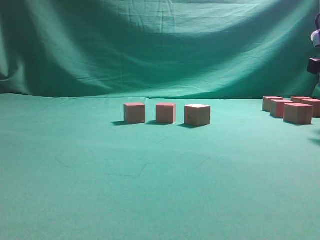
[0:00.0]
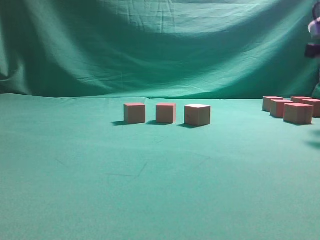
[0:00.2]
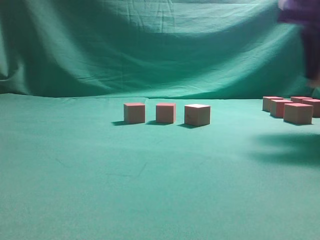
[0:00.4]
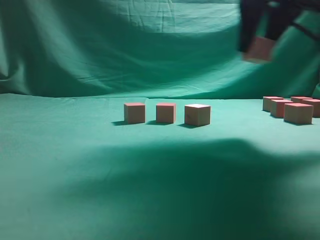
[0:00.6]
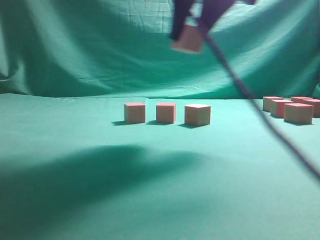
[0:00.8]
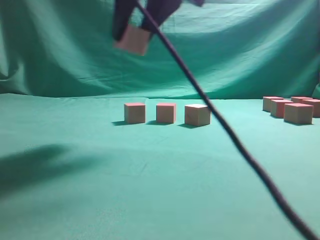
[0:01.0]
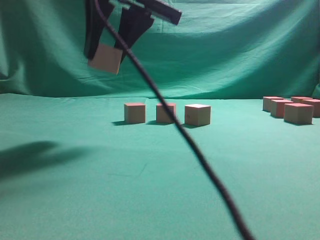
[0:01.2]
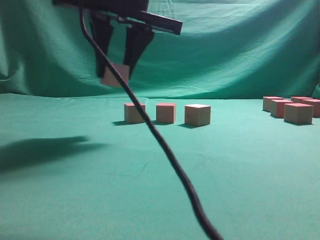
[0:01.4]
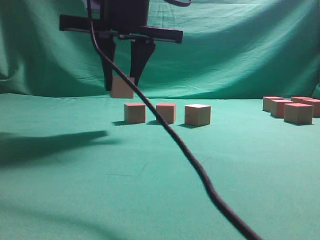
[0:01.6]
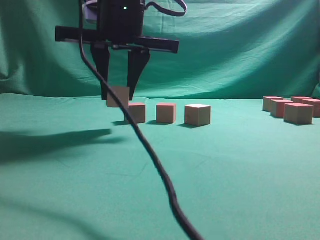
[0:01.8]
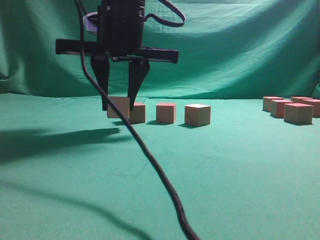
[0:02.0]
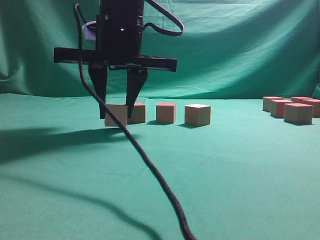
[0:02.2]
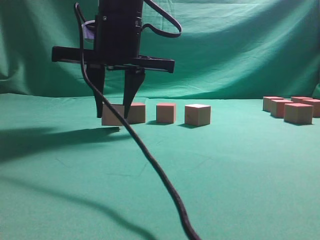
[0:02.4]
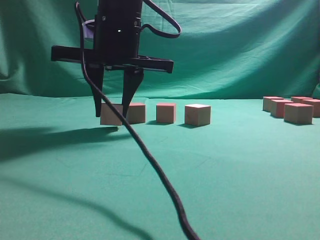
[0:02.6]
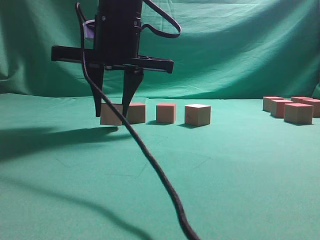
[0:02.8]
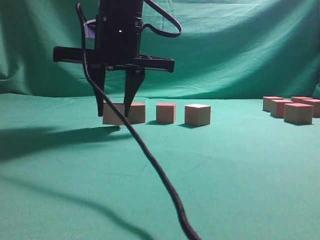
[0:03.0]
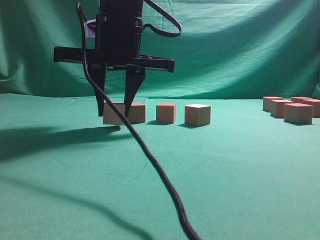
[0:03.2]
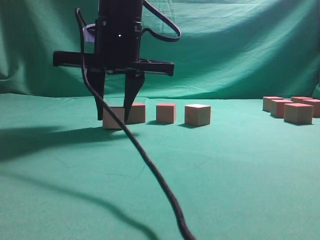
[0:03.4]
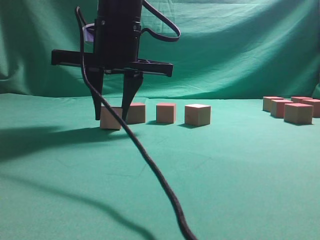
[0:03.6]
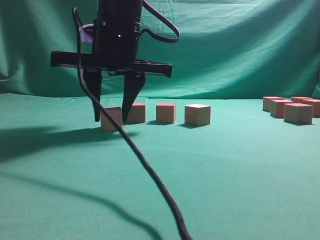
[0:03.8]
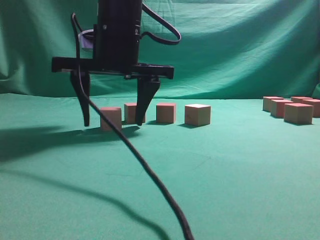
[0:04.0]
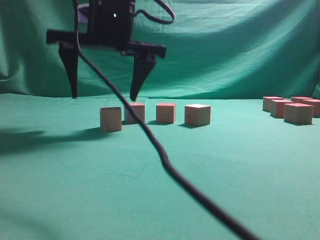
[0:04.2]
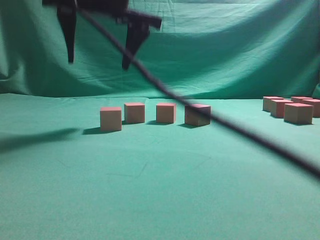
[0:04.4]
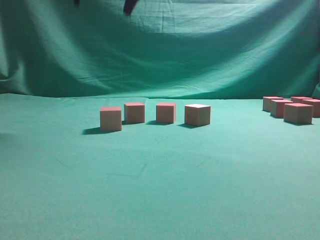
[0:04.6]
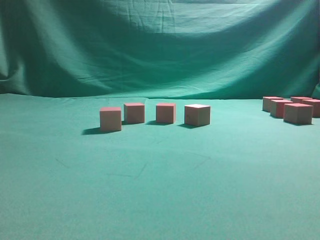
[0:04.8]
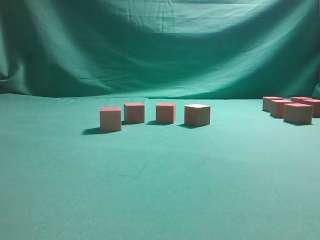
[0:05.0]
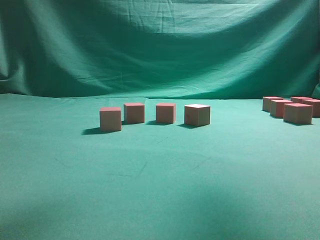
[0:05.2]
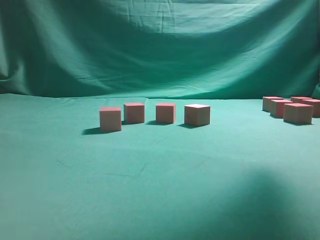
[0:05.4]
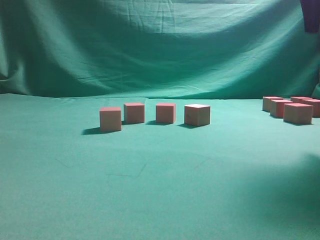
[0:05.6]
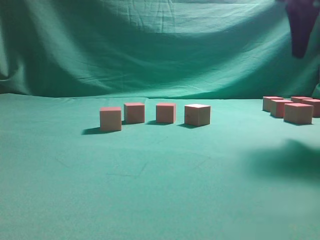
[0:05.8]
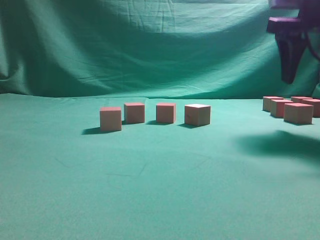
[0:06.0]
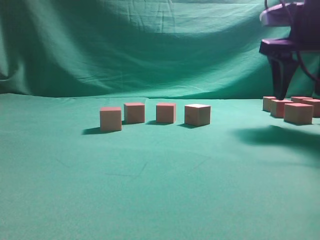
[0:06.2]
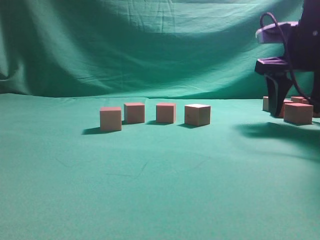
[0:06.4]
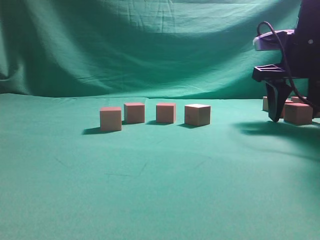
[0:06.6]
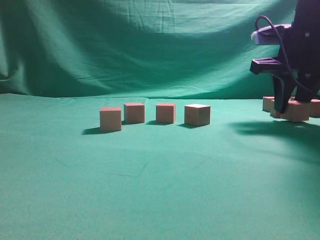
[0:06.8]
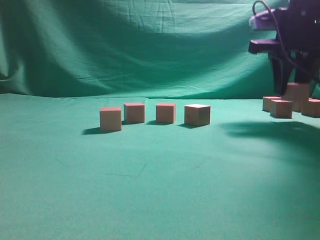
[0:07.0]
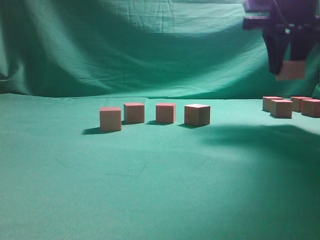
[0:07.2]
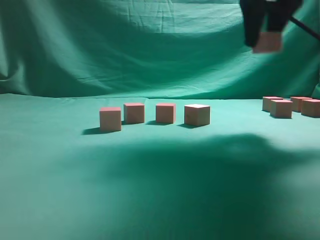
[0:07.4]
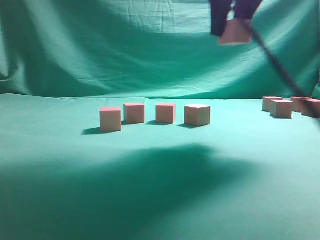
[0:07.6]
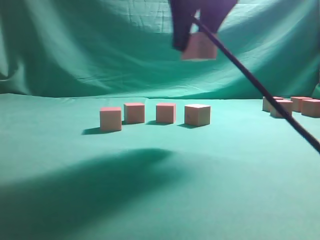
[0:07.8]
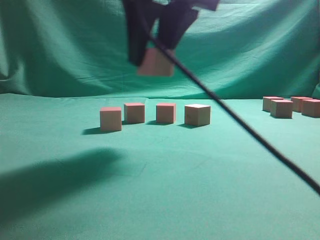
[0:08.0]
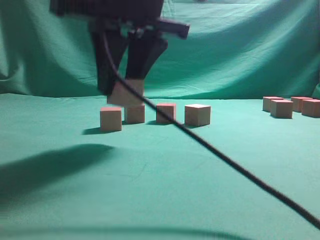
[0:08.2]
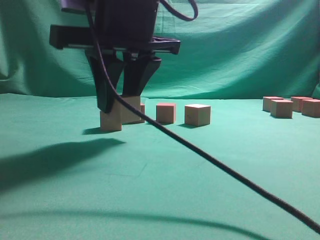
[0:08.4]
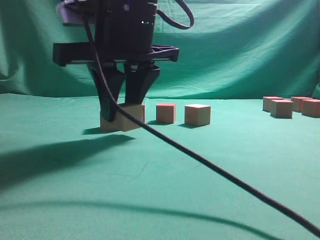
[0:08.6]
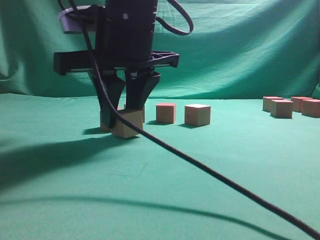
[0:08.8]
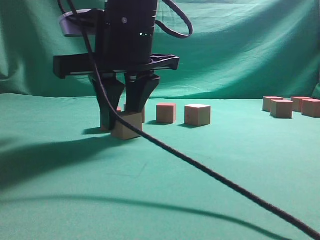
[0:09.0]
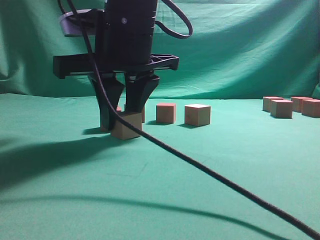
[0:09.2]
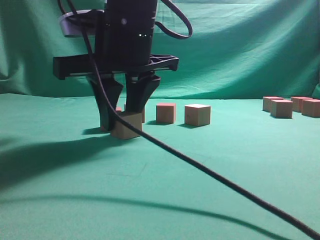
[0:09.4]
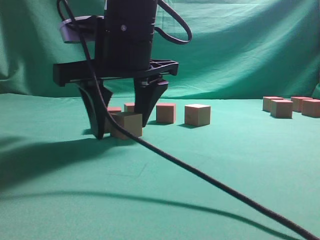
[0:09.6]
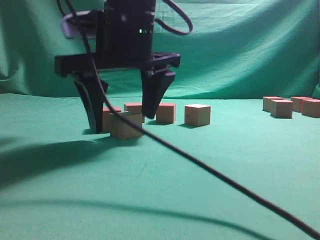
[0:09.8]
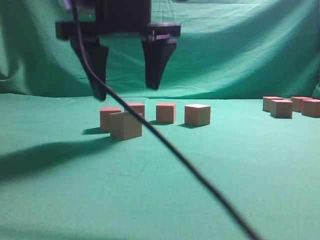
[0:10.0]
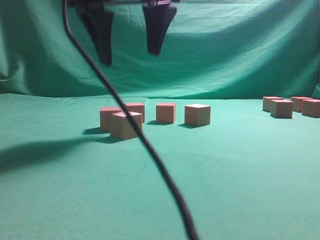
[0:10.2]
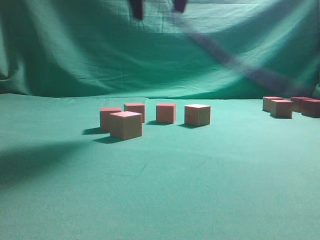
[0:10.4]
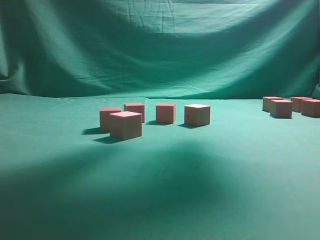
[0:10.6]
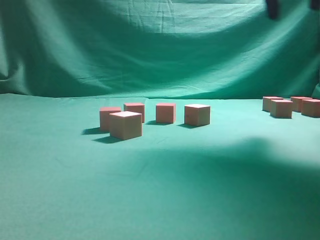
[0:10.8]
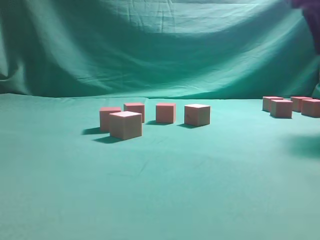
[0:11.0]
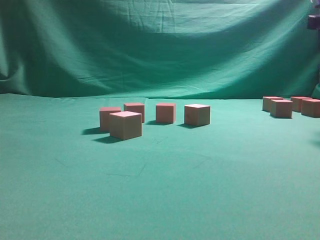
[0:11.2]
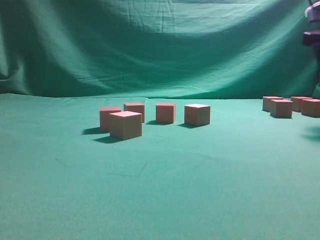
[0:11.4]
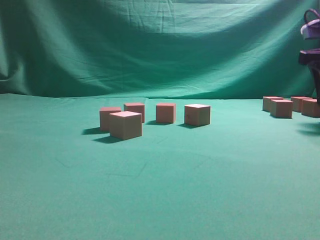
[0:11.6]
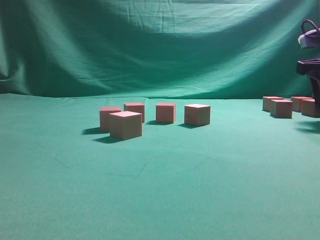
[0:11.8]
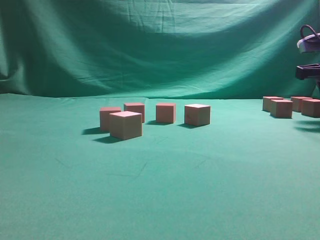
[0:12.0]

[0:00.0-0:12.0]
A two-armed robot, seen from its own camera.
Task of the whole recording: pick up the multiple cubes in two columns one by one and place them in another position on the table.
Step, 0:00.4 to 0:04.4: Place the block at the correct position to assemble the letter S.
Step, 0:04.6 to 0:07.0: Pick up the block on the table.
Step, 0:07.2 to 0:10.0: Place the block at the correct position to assemble the letter S.
0:00.0 to 0:01.6: The right gripper travels to the left by some 35 cm.
0:01.6 to 0:03.0: The grippers make only small movements.
0:03.0 to 0:04.4: The right gripper shifts about 10 cm upward, and opens up.
0:04.4 to 0:06.0: The right gripper travels to the right by roughly 30 cm.
0:06.0 to 0:07.6: The right gripper travels to the left and upward by some 15 cm, and closes its fingers.
0:07.6 to 0:09.0: The right gripper heads to the left and downward, covering approximately 20 cm.
0:09.0 to 0:10.4: The right gripper travels upward by about 15 cm, and opens its fingers.
0:10.4 to 0:12.0: The right gripper heads to the right and downward, covering approximately 30 cm, and closes up.

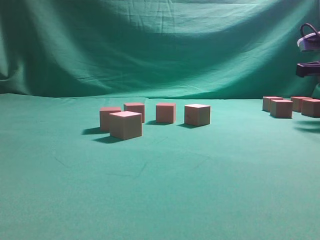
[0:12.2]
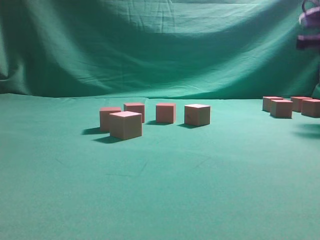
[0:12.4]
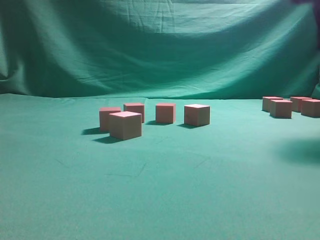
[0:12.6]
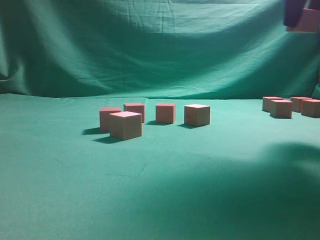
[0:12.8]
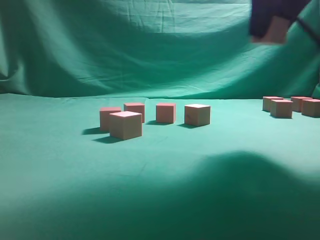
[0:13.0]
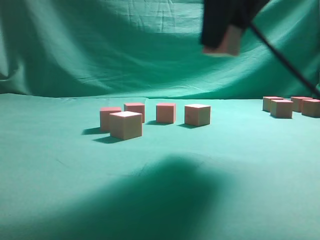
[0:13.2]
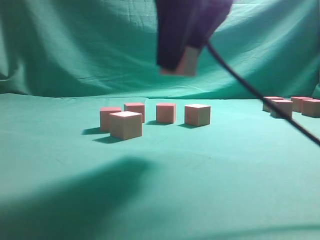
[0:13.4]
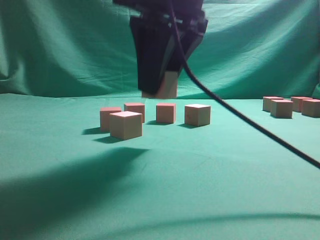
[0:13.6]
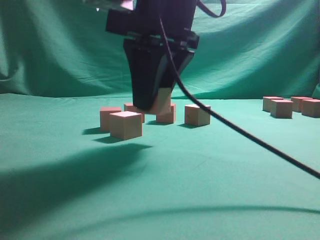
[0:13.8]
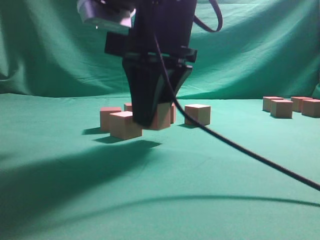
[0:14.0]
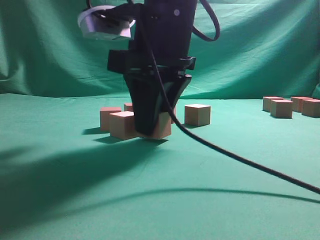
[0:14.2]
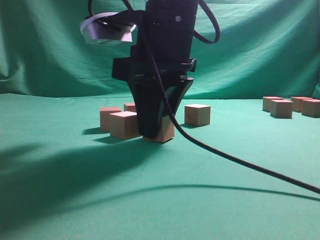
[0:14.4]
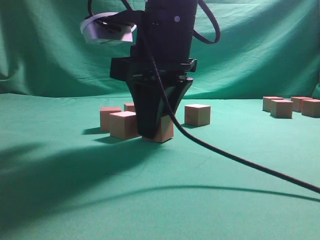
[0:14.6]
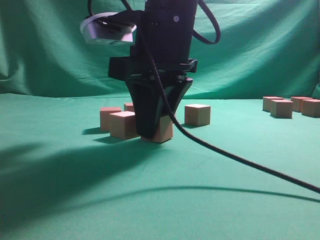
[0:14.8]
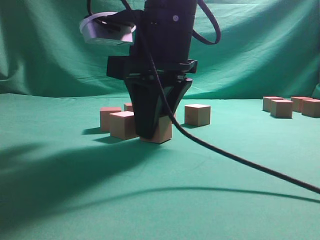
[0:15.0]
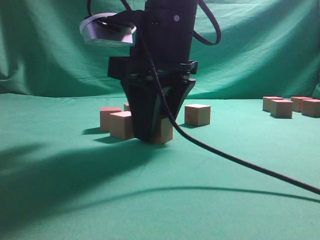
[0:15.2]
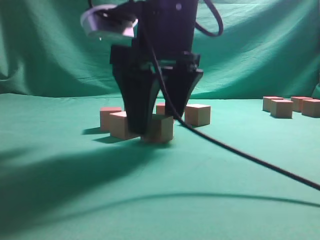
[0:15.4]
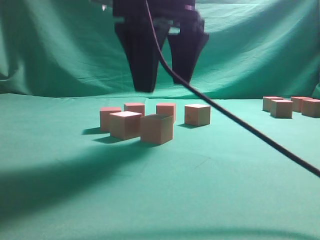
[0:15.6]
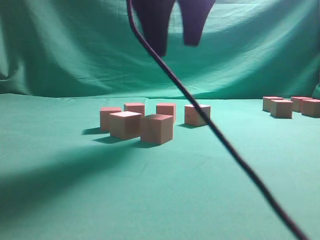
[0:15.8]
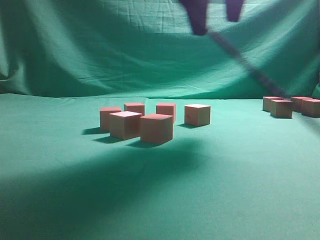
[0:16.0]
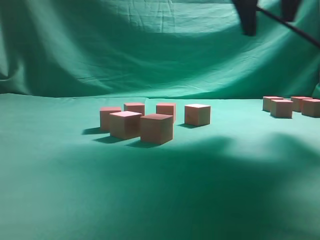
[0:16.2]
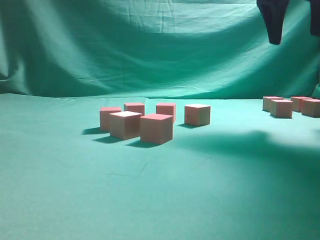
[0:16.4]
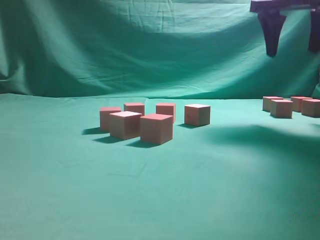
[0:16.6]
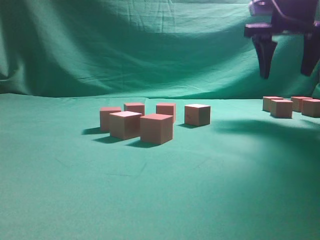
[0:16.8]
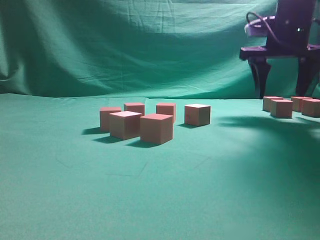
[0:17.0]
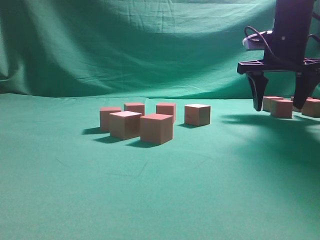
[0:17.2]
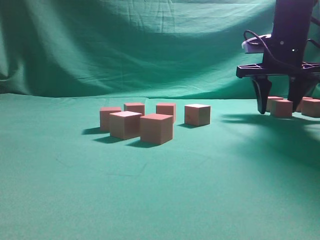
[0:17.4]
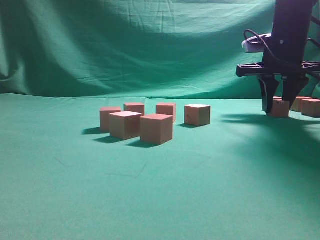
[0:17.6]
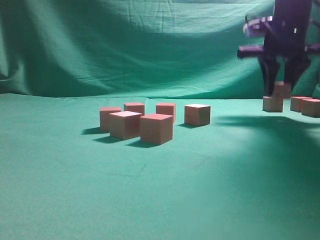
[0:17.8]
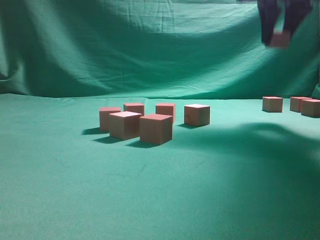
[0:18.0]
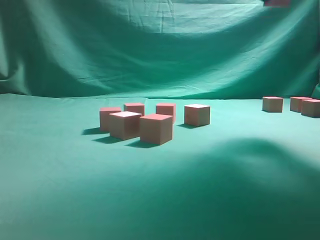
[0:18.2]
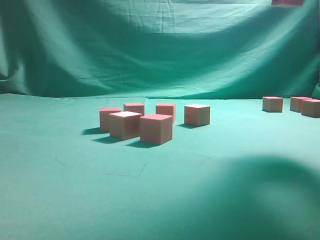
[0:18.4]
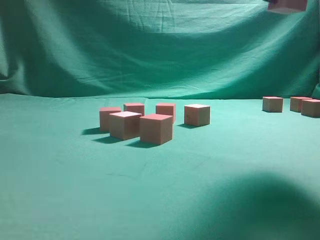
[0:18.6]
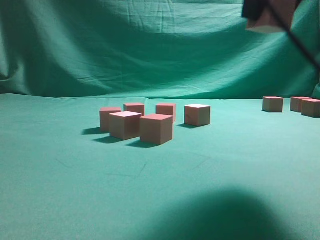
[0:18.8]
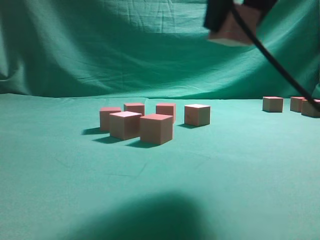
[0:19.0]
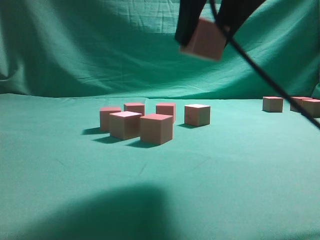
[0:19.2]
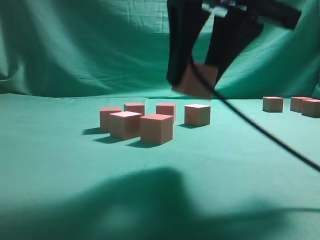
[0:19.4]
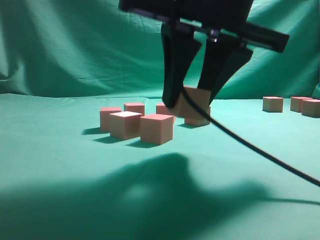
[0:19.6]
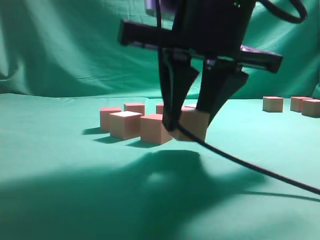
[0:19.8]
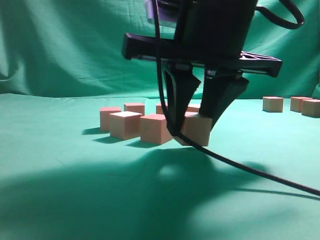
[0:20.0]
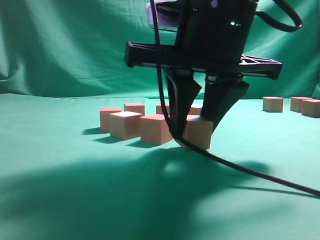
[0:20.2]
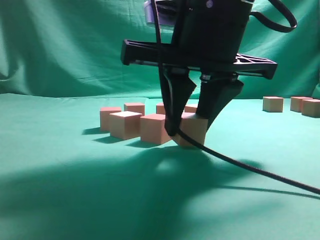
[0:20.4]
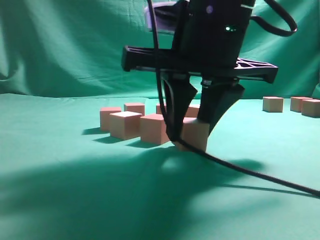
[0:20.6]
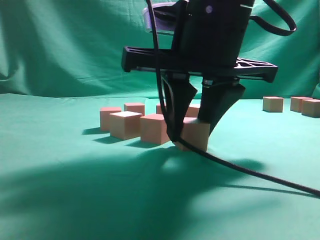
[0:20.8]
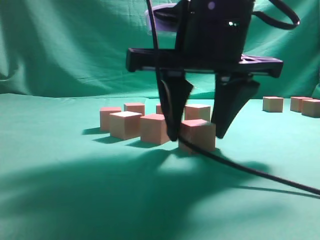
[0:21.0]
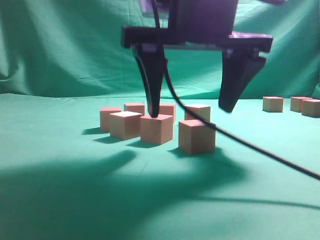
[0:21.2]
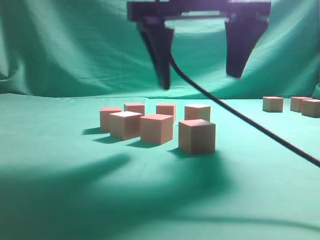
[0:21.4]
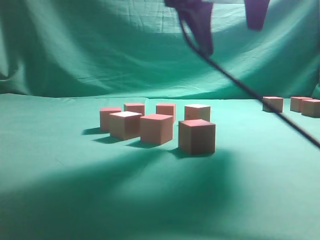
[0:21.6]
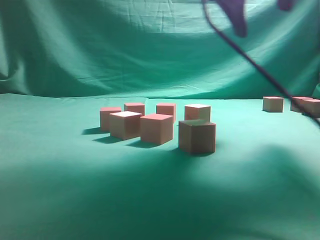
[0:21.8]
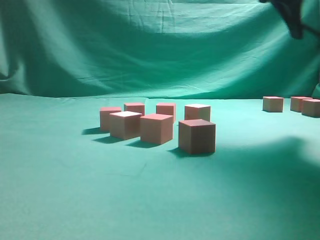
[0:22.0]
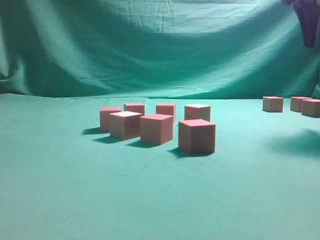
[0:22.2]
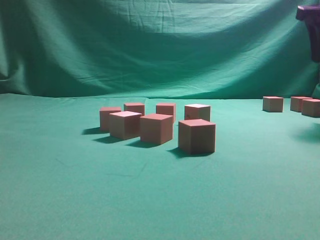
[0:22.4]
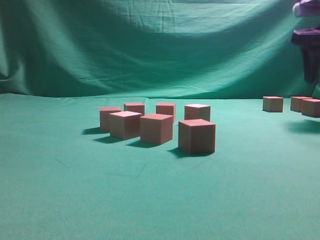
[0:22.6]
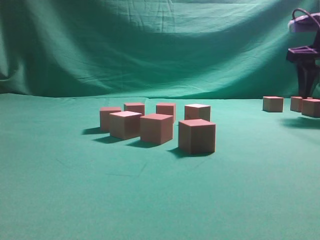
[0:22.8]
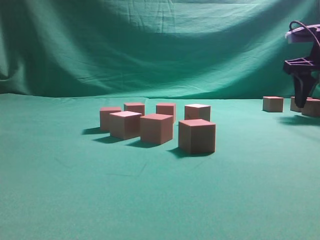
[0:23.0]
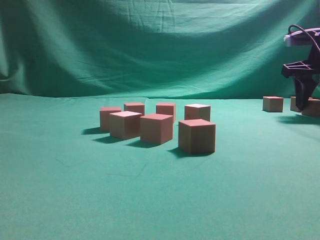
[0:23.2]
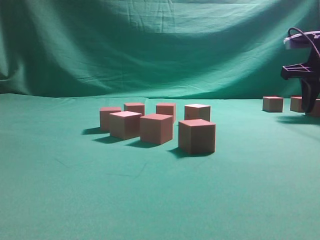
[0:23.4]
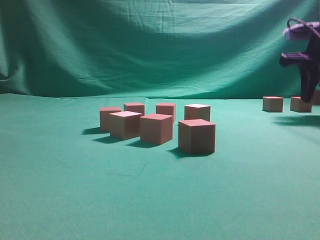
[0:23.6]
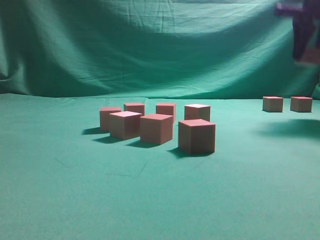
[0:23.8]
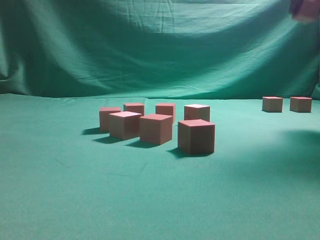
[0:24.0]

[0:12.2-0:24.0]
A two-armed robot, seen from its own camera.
Task of the whole recording: pick up the multiple cubes in two columns one by one and place them in another position on the table.
Step, 0:12.6 to 0:15.6: Place the block at the correct position to assemble the letter S.
Step, 0:15.8 to 0:17.8: Pick up the block on the table.
Step, 0:18.0 to 0:21.4: Place the block at the correct position to assemble the letter S.
Step, 0:21.6 to 0:23.6: Pick up the block on the table.
0:12.2 to 0:13.6: The right gripper moves to the left and backward, some 30 cm.
0:13.6 to 0:15.2: The right gripper changes place by about 5 cm.
0:15.2 to 0:16.6: The right gripper shifts some 25 cm to the right, forward and upward.
0:16.6 to 0:18.2: The right gripper moves upward and backward, some 10 cm, and closes.
0:18.2 to 0:19.6: The right gripper heads downward, backward and to the left, covering roughly 25 cm.
0:21.0 to 0:22.6: The right gripper is displaced to the right and forward by some 30 cm.
0:22.6 to 0:24.0: The right gripper is displaced upward by roughly 15 cm, and closes its fingers.
